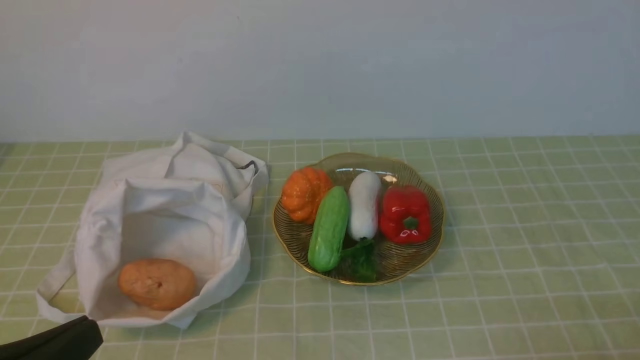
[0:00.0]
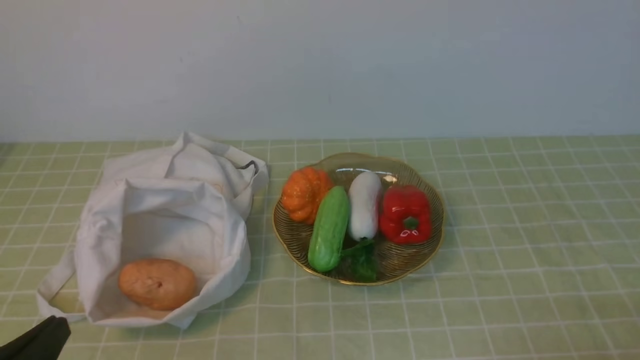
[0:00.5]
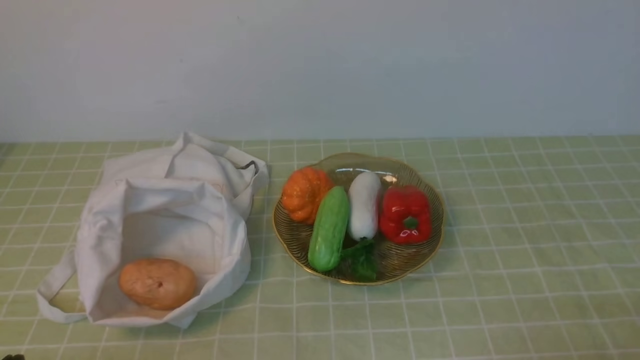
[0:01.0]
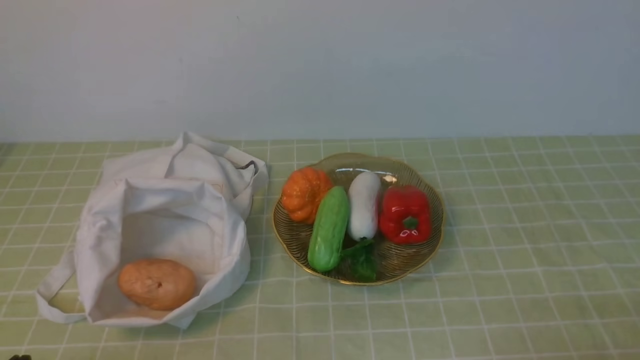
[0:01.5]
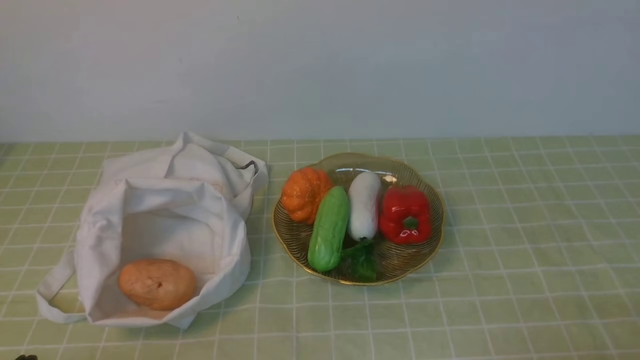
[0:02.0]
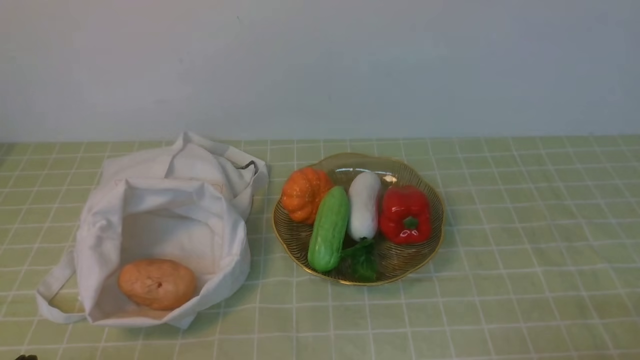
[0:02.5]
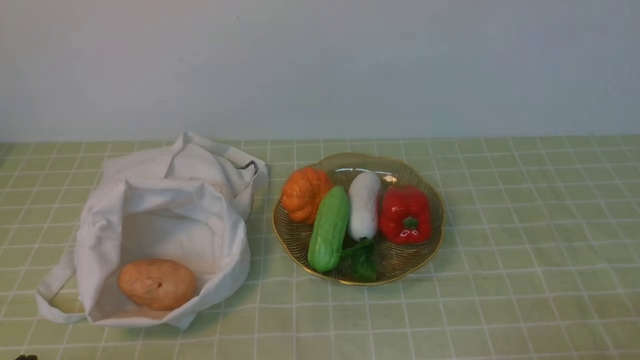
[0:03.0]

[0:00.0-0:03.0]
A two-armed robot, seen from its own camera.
Task of the whole recording: take vegetables from bag on green coffee tablecloth place on plate.
0:00.0 to 0:01.5: The left gripper moves downward, approximately 10 cm.
0:01.5 to 0:03.0: Both grippers stay about where they are.
